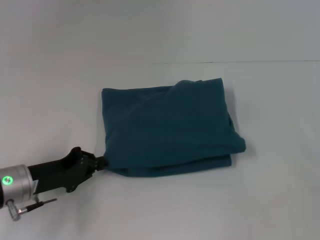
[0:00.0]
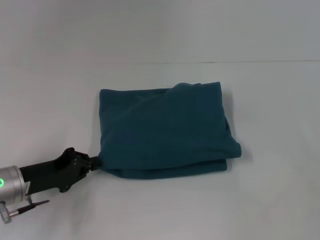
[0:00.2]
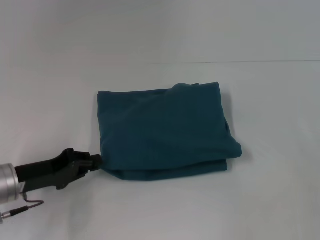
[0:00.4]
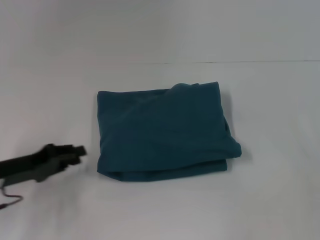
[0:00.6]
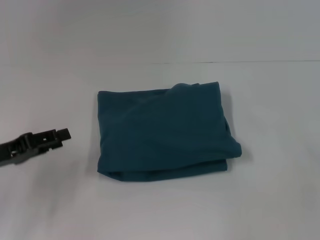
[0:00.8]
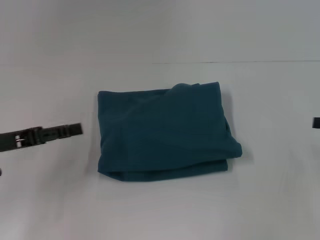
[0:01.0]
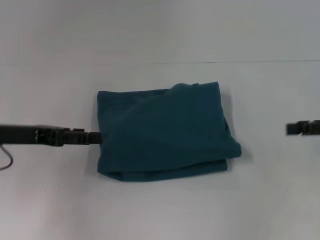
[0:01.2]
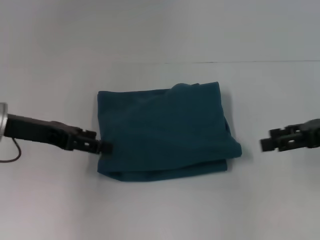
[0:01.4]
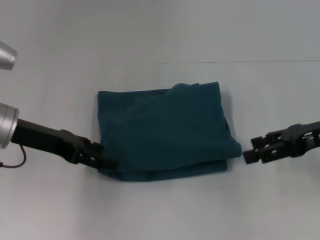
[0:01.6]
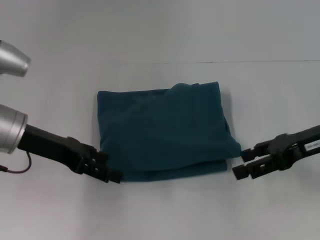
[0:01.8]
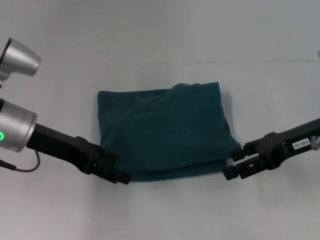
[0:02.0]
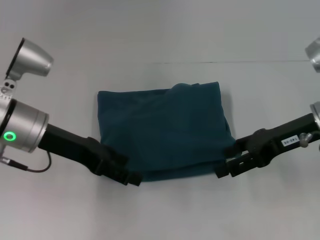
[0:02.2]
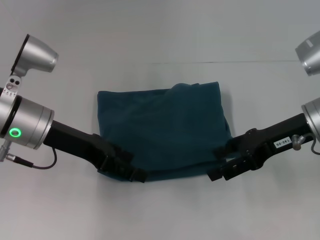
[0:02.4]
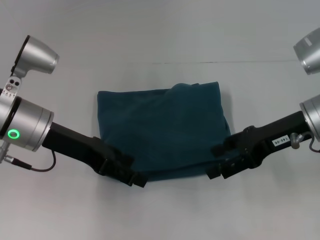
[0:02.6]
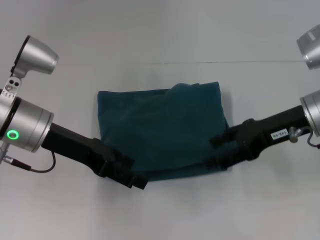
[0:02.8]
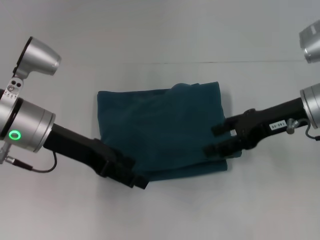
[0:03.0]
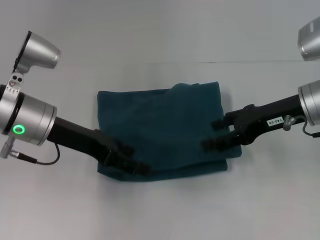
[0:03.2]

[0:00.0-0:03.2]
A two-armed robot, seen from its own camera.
0:00.0 to 0:01.6: The right gripper moves to the left, approximately 10 cm; the left gripper is displaced upward and forward by approximately 15 cm, and opens its fingers.
0:01.6 to 0:03.2: The right gripper moves to the left, roughly 5 cm.

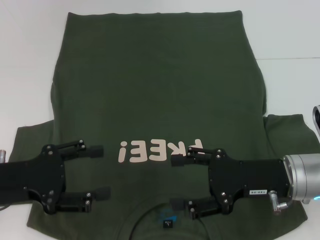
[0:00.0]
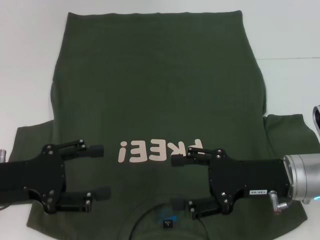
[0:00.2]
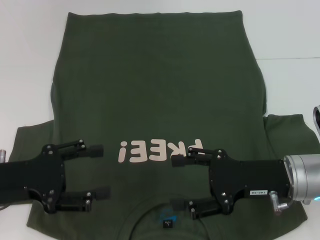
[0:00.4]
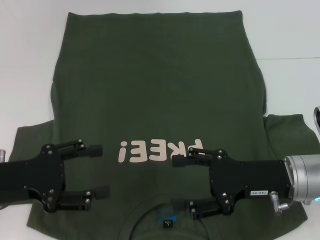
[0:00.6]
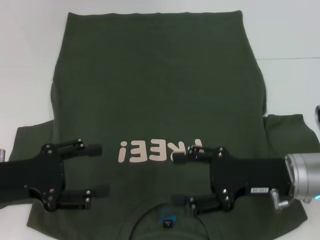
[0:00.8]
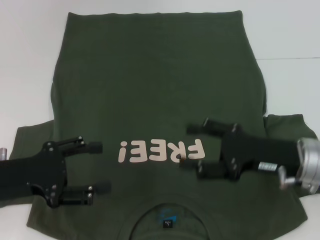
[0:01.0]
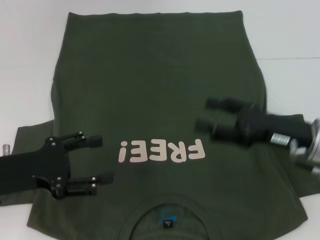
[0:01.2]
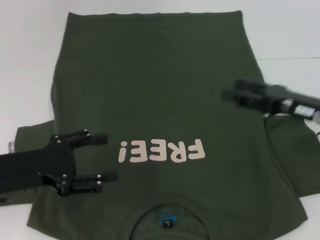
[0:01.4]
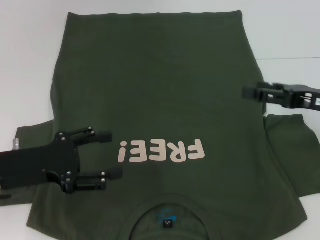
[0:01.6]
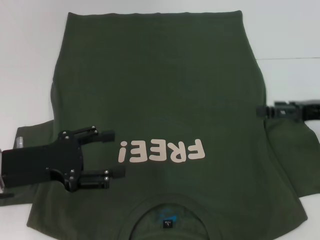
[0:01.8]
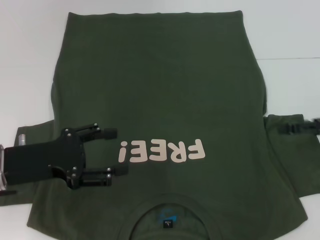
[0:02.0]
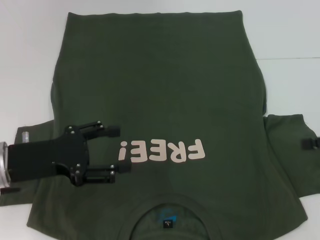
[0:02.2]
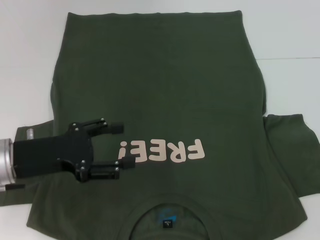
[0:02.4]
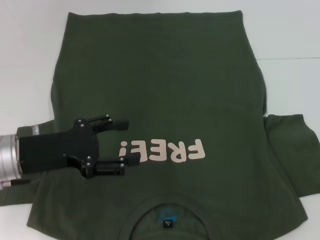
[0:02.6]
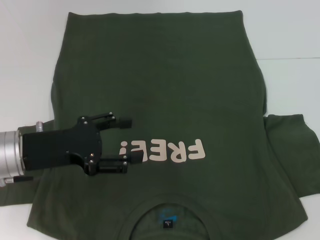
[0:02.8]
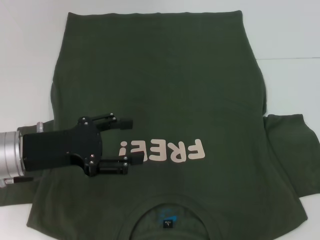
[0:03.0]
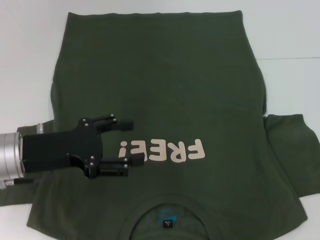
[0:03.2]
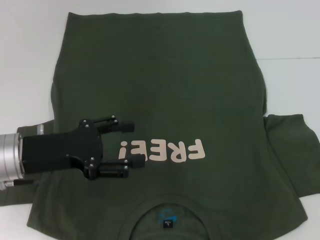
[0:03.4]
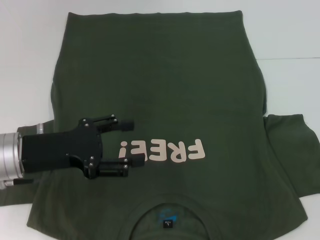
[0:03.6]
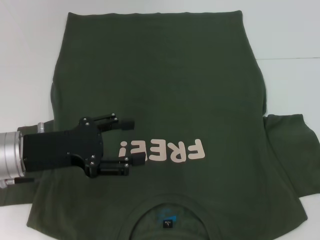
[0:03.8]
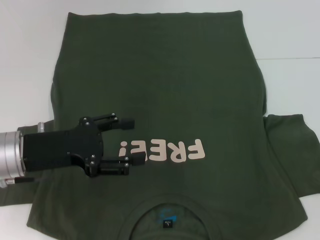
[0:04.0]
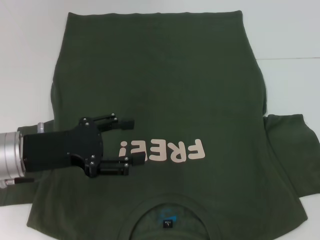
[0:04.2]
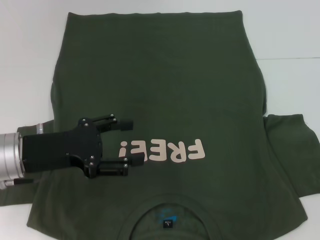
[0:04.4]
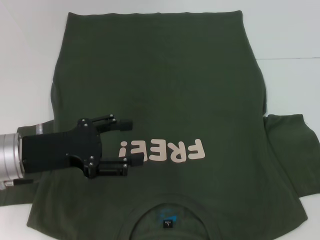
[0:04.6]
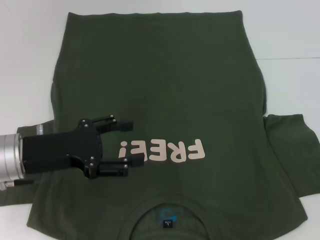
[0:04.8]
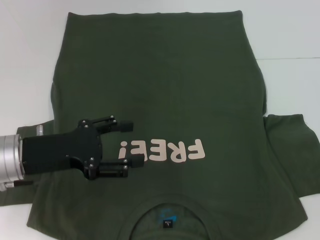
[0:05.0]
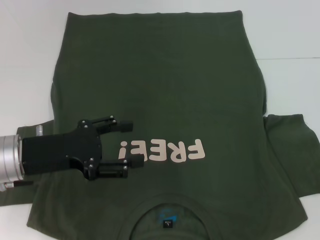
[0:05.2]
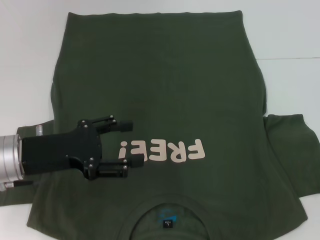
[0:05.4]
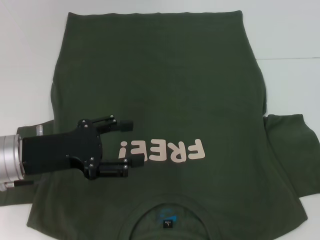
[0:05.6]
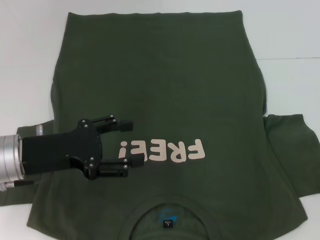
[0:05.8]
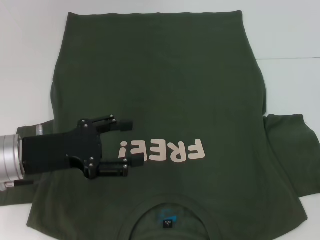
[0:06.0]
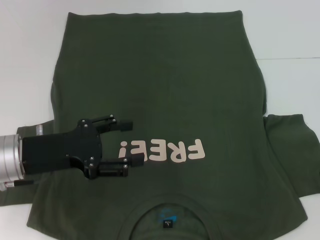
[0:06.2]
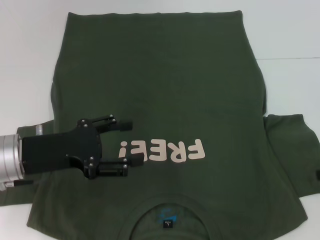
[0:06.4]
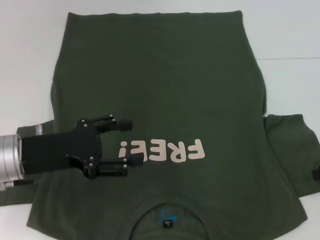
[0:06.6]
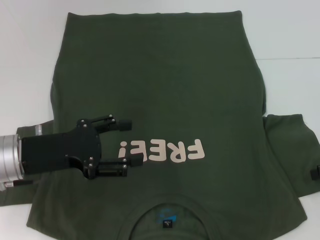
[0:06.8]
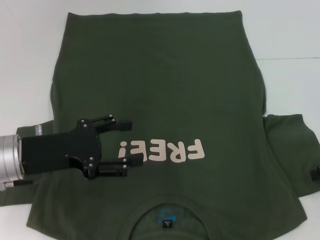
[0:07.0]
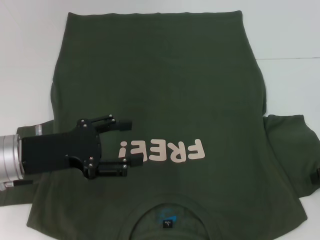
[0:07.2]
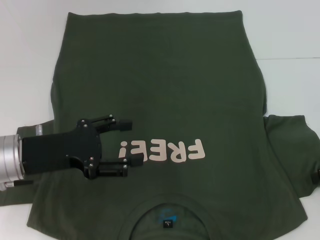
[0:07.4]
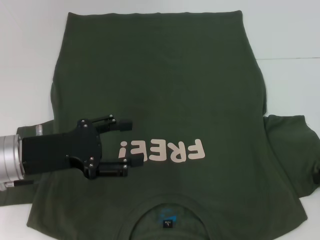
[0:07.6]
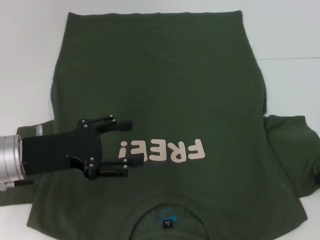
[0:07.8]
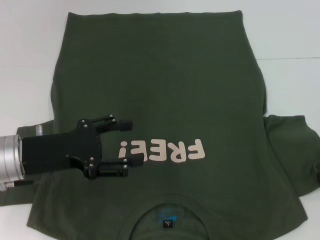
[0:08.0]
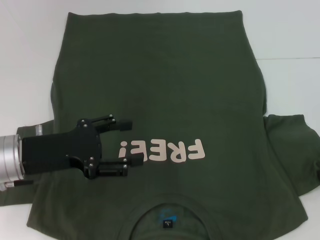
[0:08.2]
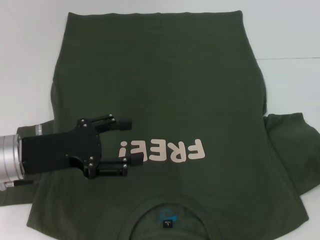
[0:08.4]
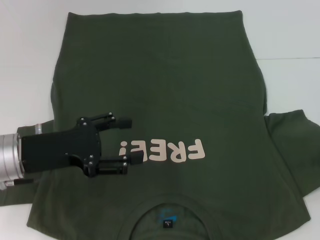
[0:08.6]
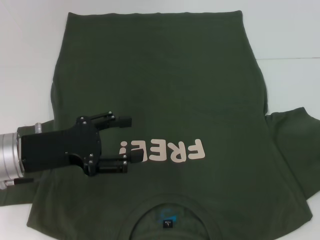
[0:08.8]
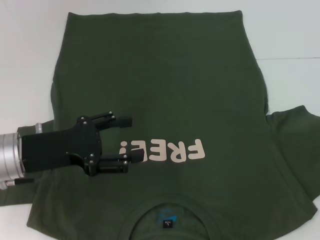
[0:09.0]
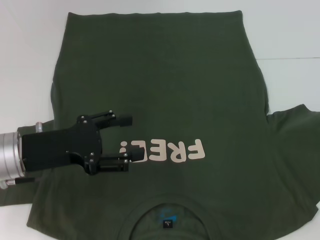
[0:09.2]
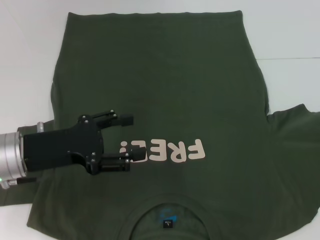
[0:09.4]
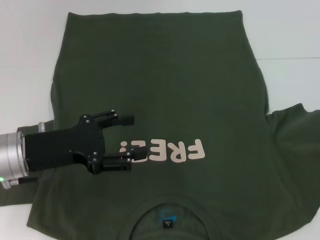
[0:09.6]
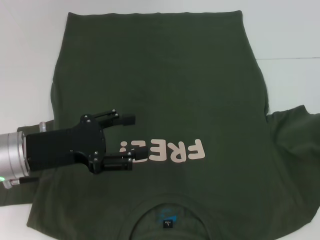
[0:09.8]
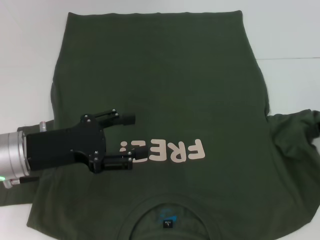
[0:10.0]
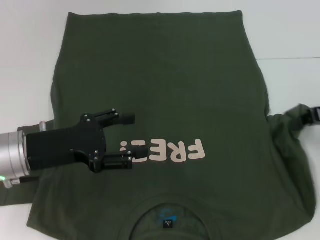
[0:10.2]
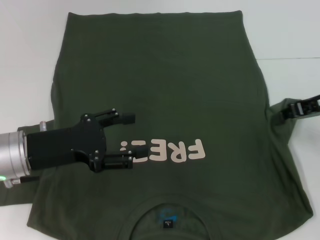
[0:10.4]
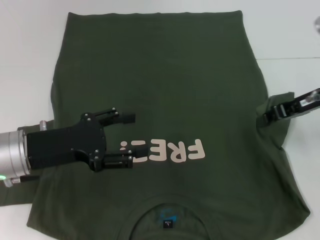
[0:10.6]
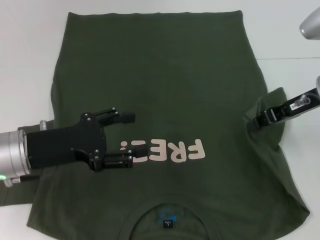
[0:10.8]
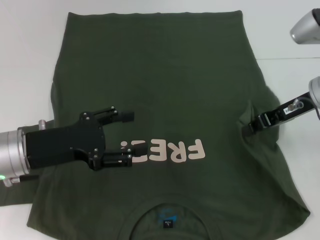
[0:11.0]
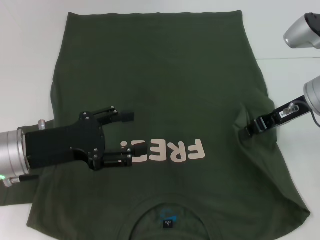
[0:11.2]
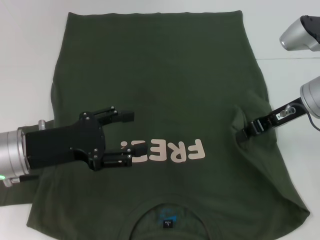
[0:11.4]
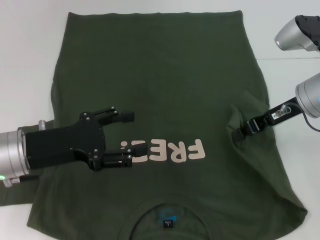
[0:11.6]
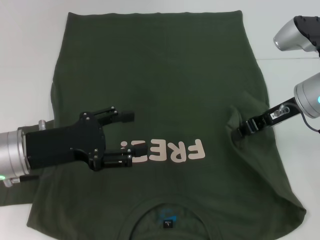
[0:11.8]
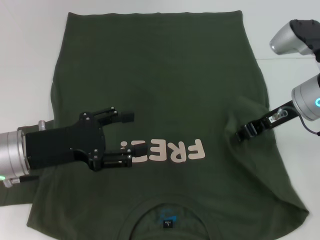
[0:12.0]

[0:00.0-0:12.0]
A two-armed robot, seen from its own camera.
0:00.0 to 0:01.6: The right gripper goes roughly 10 cm to the right, forward and upward.
0:01.6 to 0:03.0: The right gripper goes roughly 10 cm to the right.
0:04.4 to 0:06.0: The two grippers keep their place.
0:07.6 to 0:09.0: The right gripper closes.
0:09.0 to 0:10.4: The right gripper travels to the left and forward by approximately 10 cm.
0:10.4 to 0:12.0: The right gripper is displaced to the left by some 5 cm.

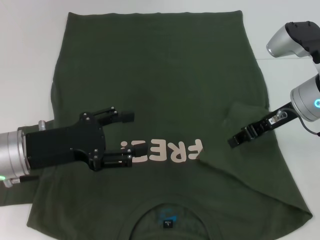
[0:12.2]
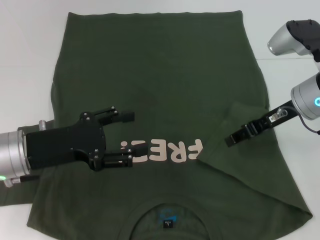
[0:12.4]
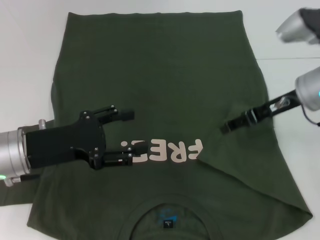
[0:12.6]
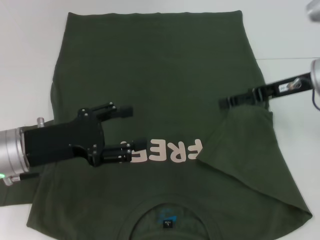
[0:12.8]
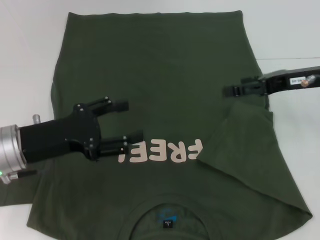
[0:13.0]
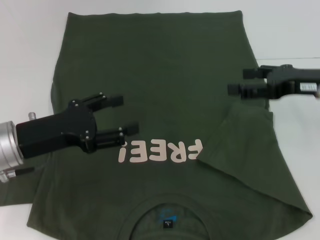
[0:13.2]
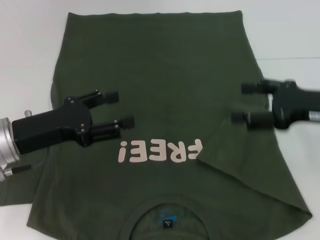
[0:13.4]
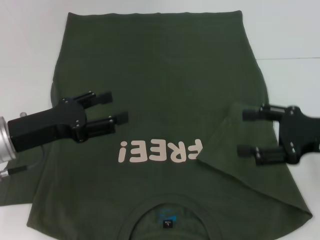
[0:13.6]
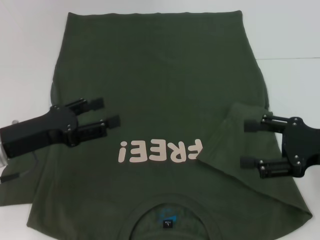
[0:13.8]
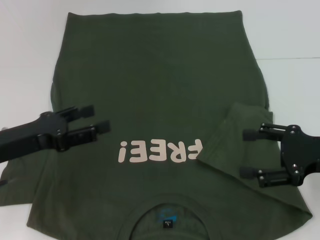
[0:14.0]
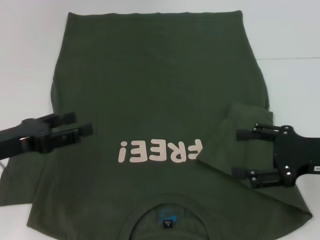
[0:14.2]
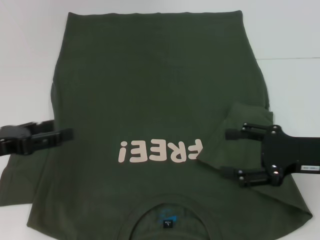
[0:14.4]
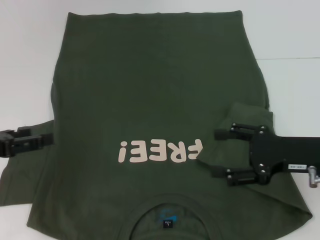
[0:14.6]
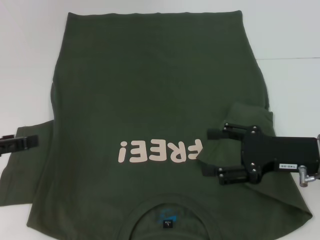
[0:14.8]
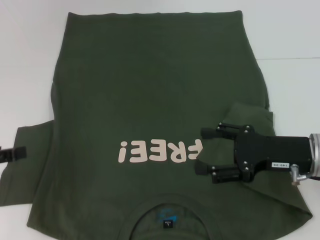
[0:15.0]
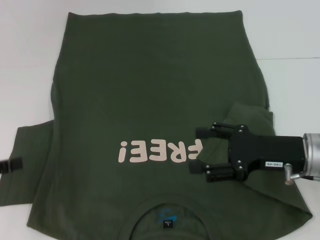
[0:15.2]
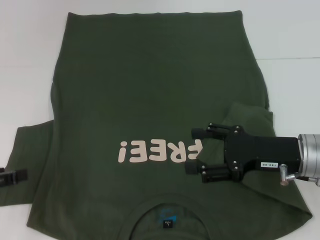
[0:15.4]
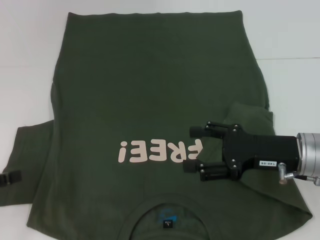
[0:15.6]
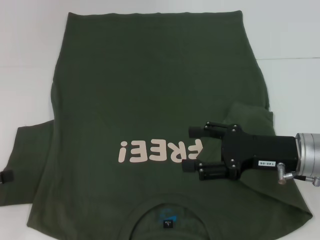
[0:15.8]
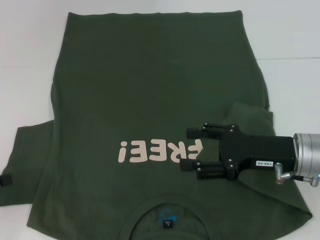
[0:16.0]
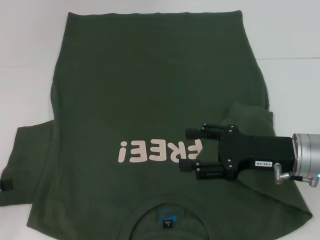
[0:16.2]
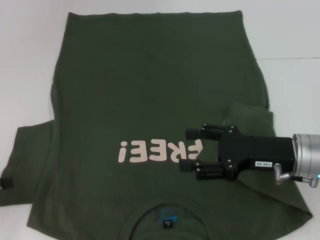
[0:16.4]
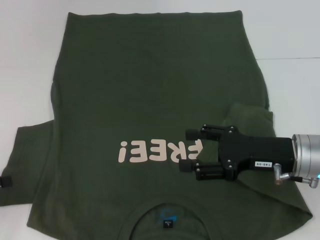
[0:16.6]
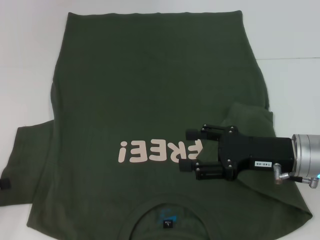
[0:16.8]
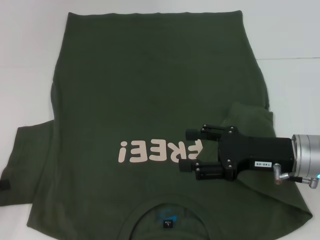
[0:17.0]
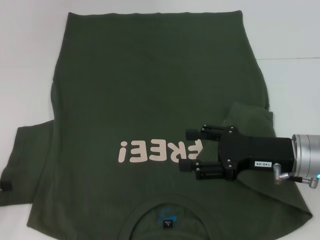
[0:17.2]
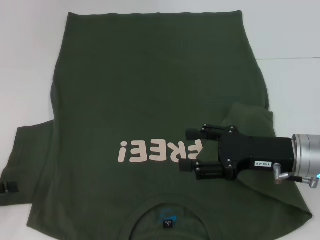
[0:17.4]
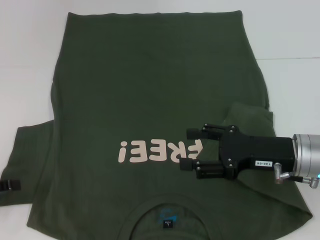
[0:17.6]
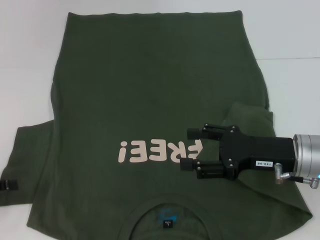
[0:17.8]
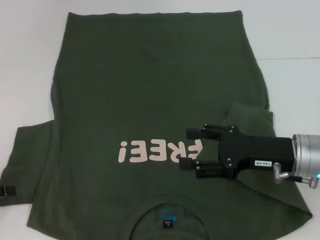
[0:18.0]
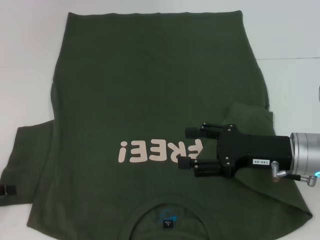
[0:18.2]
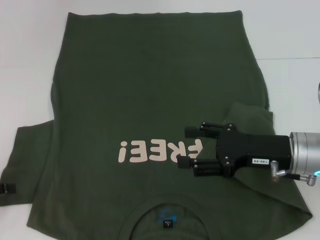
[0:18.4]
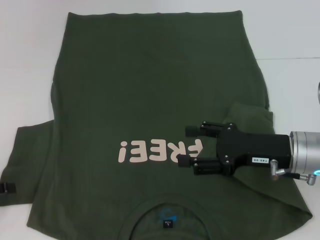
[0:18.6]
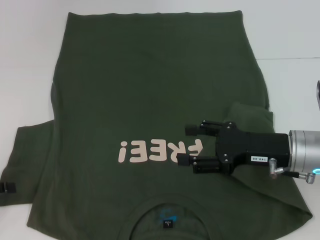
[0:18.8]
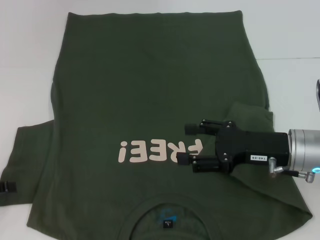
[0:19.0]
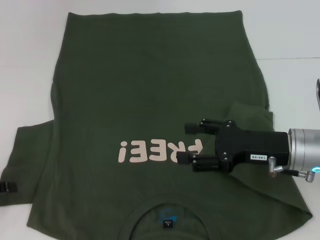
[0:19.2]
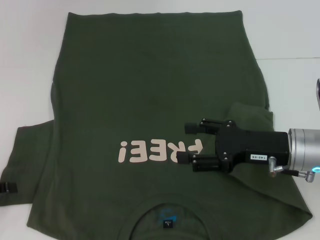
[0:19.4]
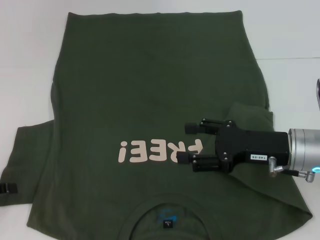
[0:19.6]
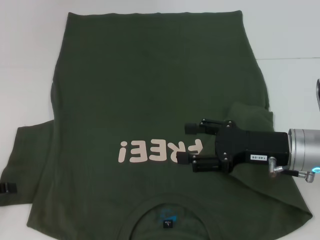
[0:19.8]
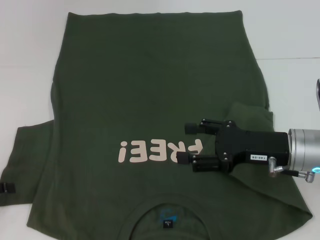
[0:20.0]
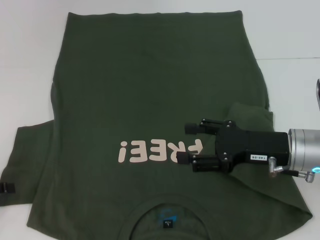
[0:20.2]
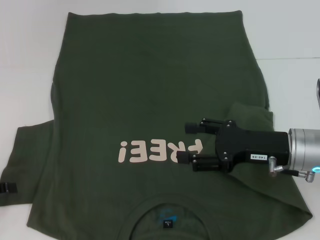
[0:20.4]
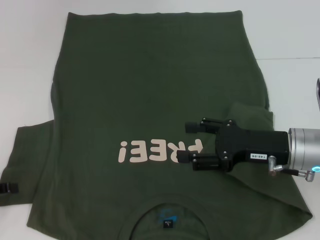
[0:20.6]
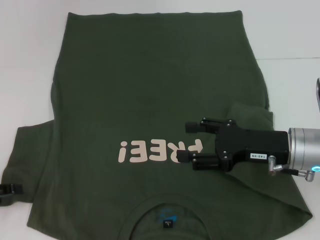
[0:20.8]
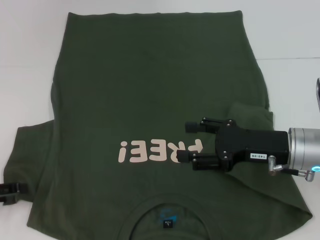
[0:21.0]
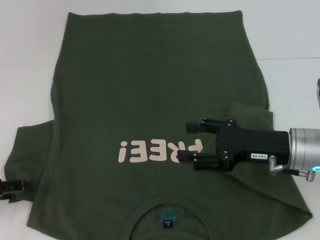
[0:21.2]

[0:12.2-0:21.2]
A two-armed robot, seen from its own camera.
0:12.2 to 0:13.8: The right gripper shifts some 15 cm backward and to the right, and opens.
0:13.8 to 0:15.2: The right gripper travels to the left by some 5 cm, while the left gripper is displaced to the left and backward by roughly 10 cm.
0:15.2 to 0:16.6: The left gripper ends up approximately 5 cm from where it was.
0:16.6 to 0:18.2: The grippers move only a little.
0:18.2 to 0:19.8: Neither gripper changes place.
0:19.8 to 0:21.2: There are only small adjustments of the grippers.